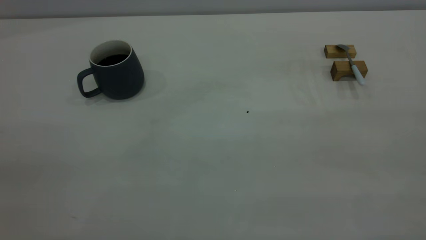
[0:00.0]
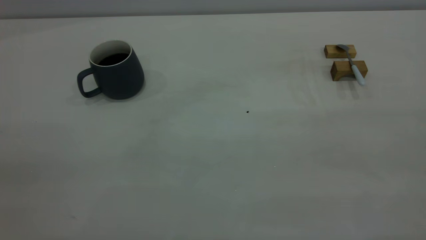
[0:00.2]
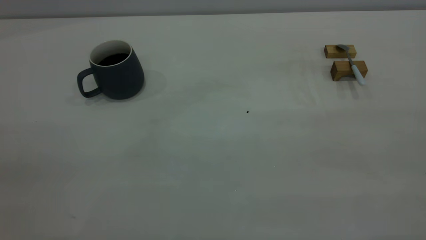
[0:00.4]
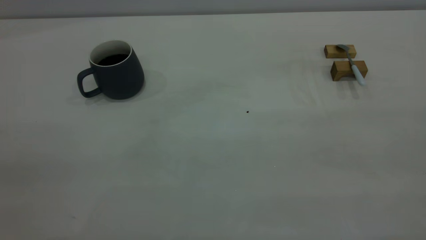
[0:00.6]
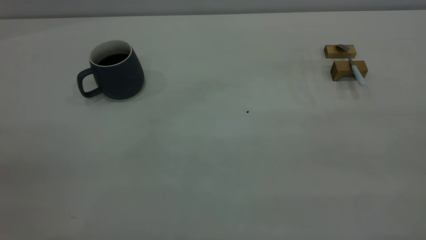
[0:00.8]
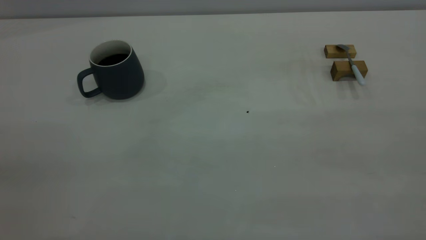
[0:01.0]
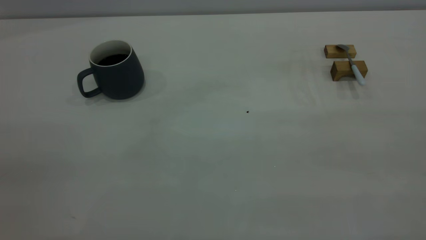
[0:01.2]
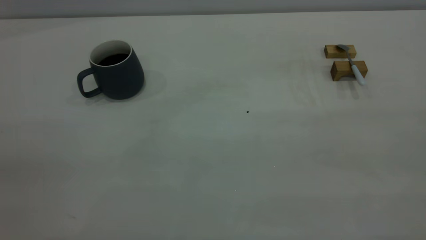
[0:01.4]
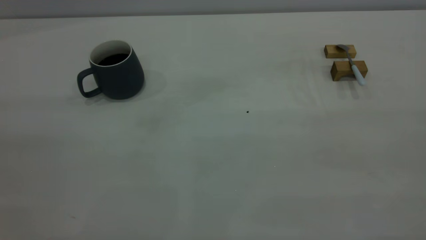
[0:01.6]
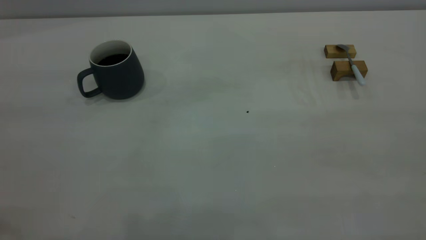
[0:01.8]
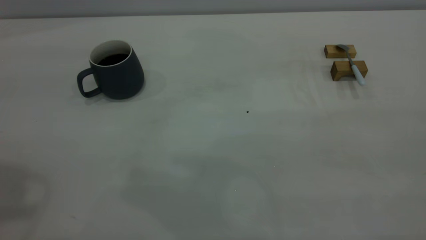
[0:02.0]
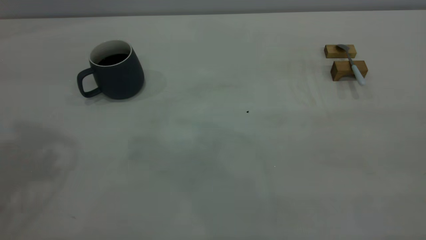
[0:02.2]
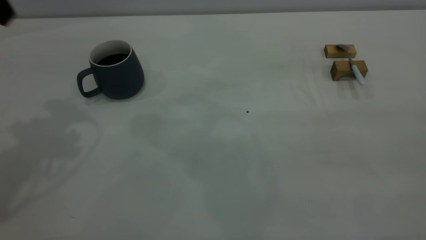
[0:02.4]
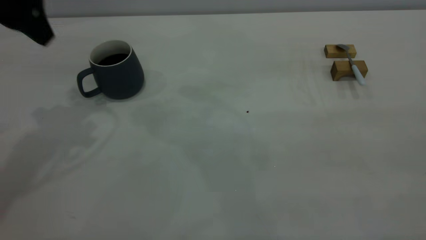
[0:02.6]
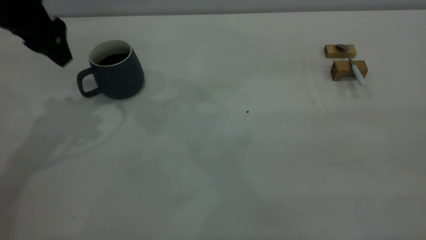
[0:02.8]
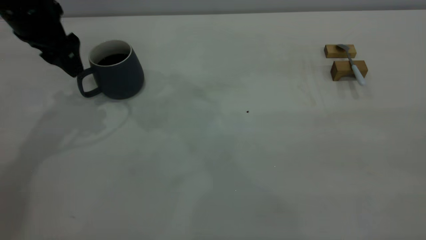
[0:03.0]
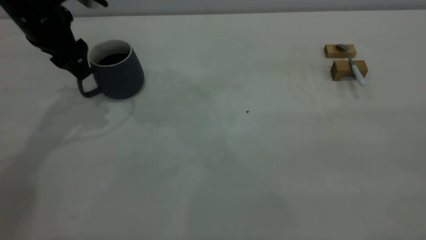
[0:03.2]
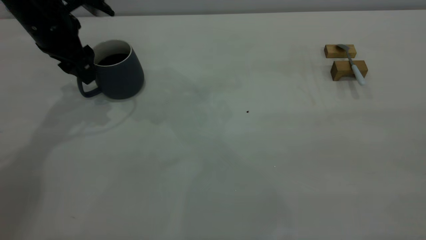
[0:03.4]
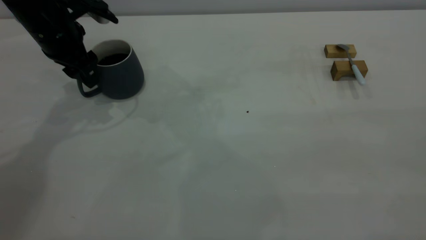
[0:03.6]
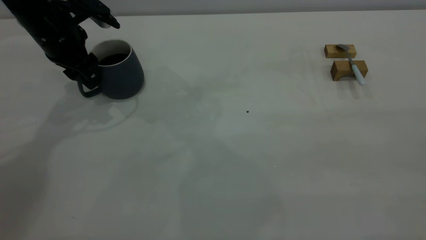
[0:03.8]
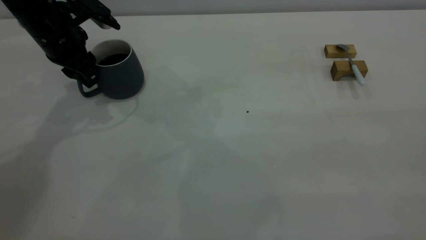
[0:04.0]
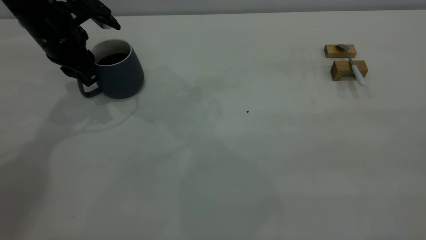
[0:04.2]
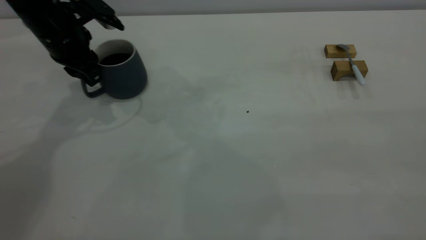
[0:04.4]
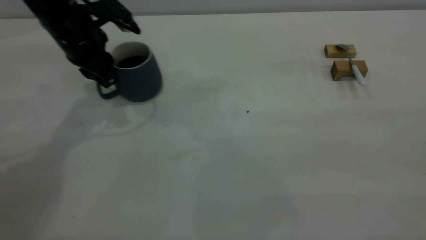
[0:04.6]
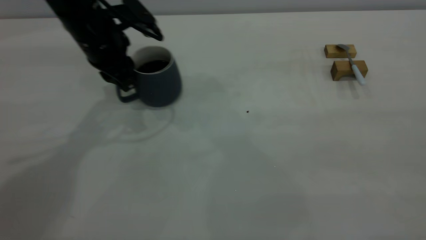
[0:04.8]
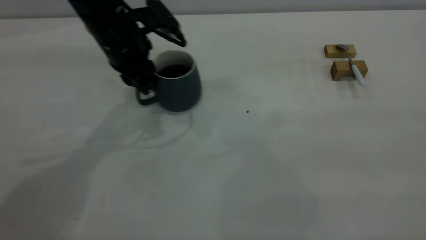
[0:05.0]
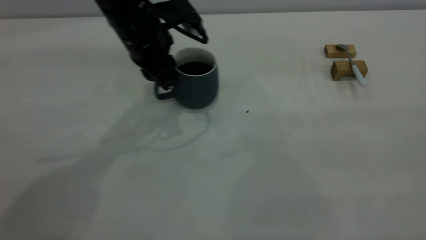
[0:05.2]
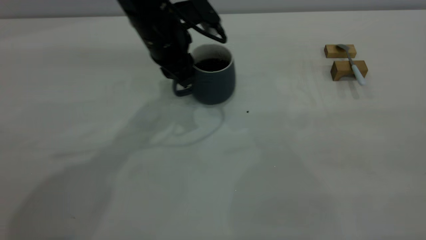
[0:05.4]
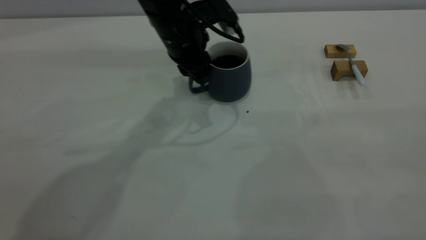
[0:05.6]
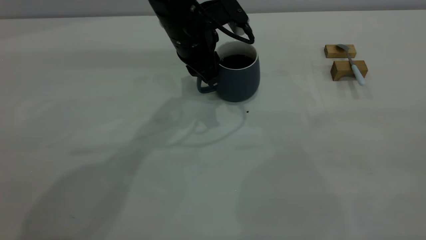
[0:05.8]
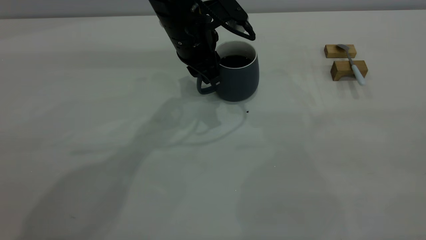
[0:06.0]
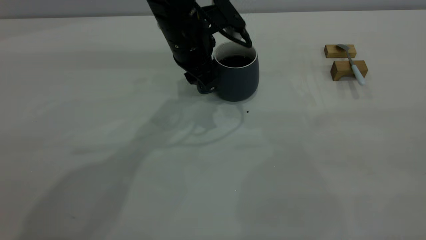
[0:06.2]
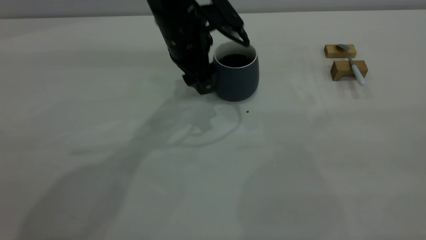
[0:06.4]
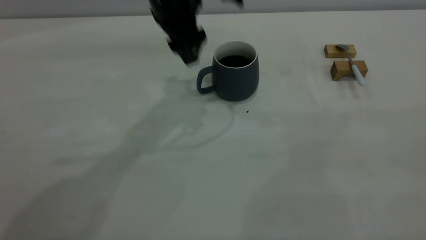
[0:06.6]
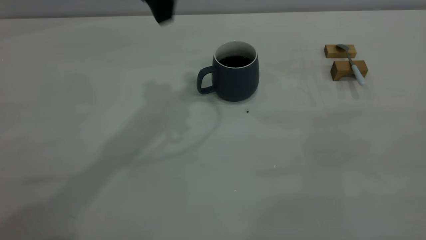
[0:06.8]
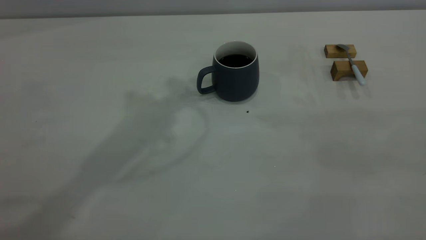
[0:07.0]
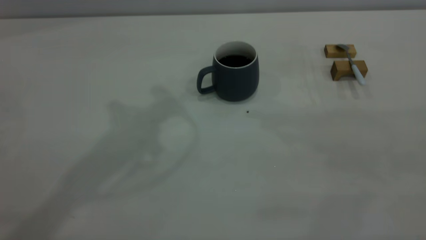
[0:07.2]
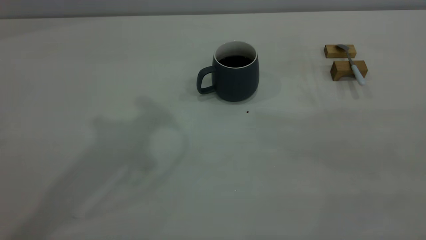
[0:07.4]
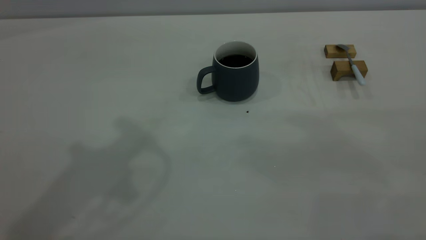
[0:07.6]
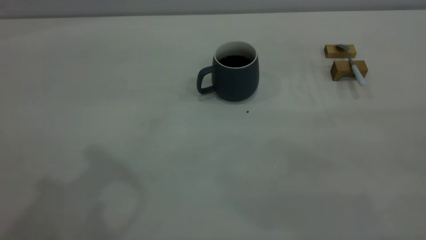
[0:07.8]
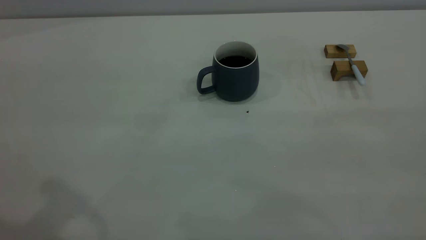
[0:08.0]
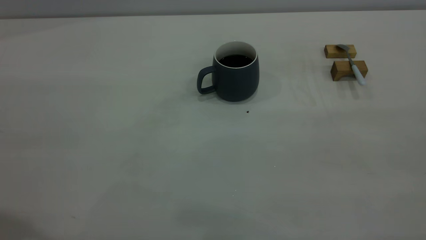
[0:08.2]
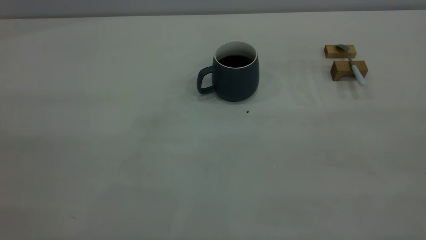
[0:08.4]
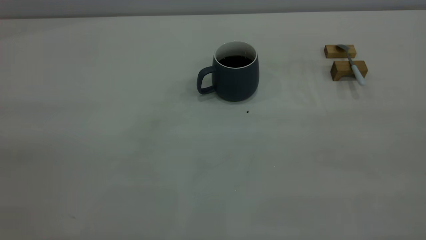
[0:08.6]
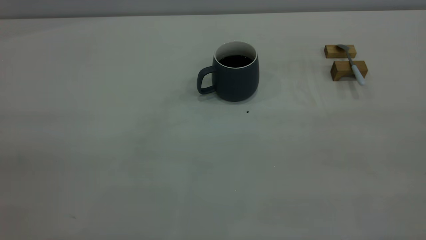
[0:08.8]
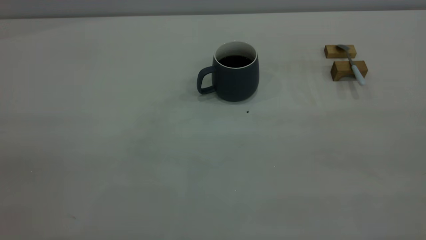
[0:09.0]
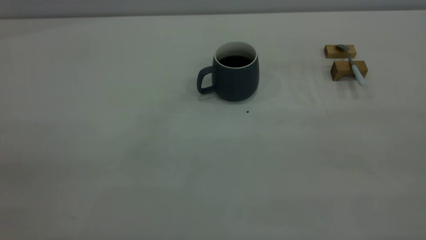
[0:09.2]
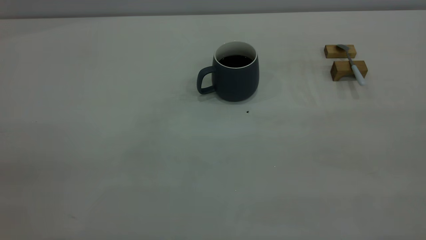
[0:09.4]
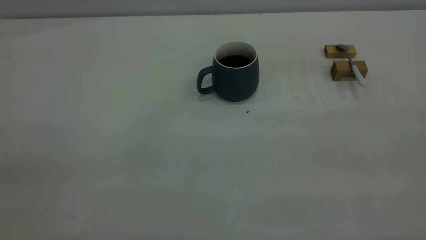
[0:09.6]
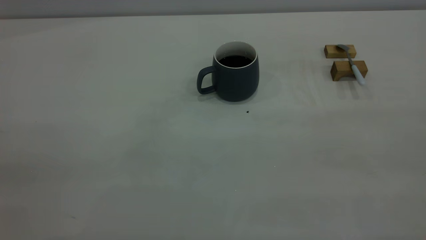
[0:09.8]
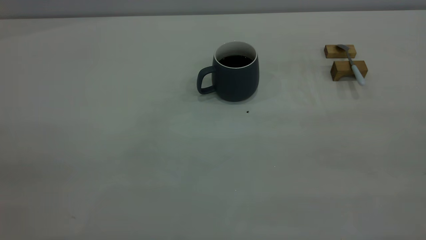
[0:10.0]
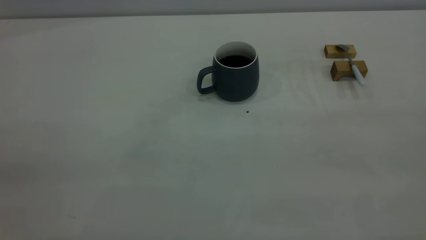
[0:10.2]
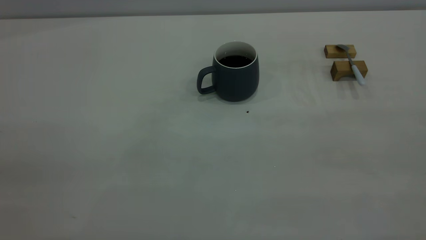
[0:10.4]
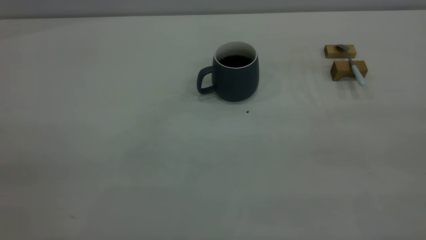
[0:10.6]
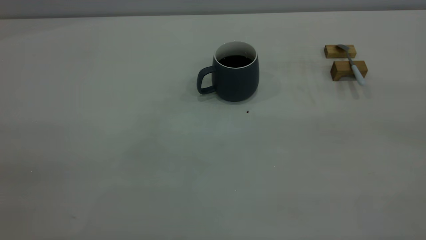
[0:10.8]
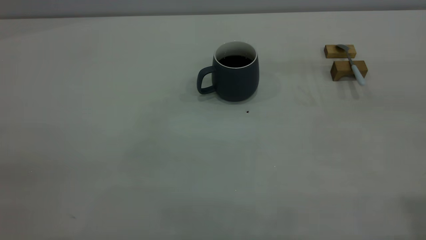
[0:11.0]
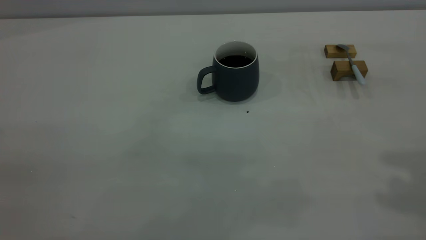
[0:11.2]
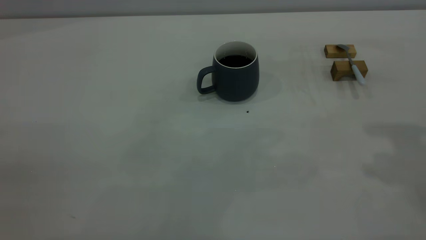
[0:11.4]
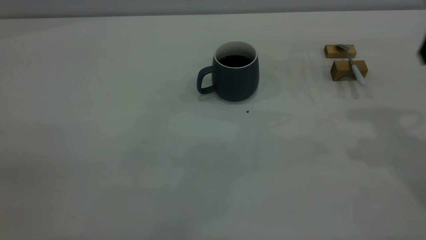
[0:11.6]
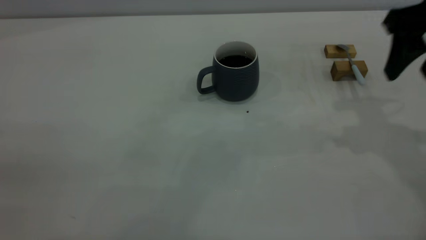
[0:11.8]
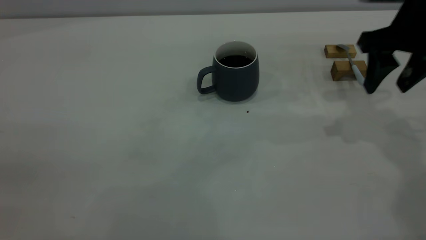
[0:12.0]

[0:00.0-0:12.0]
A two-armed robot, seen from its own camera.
Step, 0:00.0 to 0:06.6: Move the cup with coffee to the center of view.
0:01.6 to 0:03.0: The left gripper goes approximately 40 cm forward and downward, and opens its fingers.
0:03.0 to 0:04.4: The left gripper travels downward by roughly 5 cm, and closes.
0:04.4 to 0:06.0: The left gripper goes about 20 cm to the right.
0:06.0 to 0:07.6: The left gripper is displaced upward, backward and to the left by approximately 35 cm, and opens, then closes once more.
0:10.4 to 0:12.0: The right gripper travels forward and downward by roughly 40 cm, and opens up.

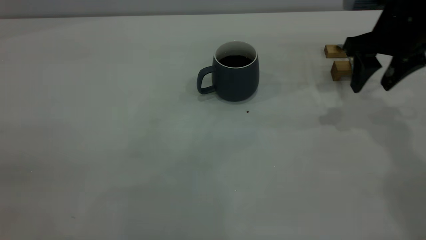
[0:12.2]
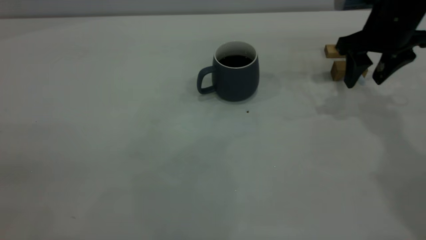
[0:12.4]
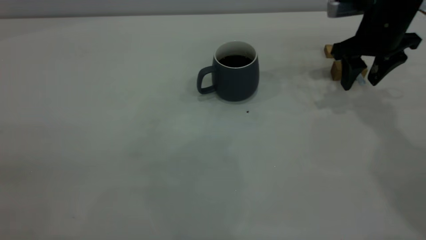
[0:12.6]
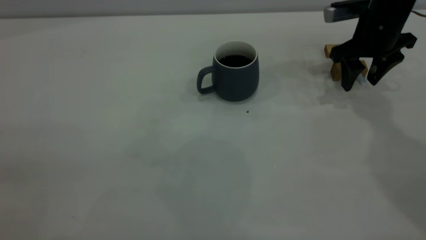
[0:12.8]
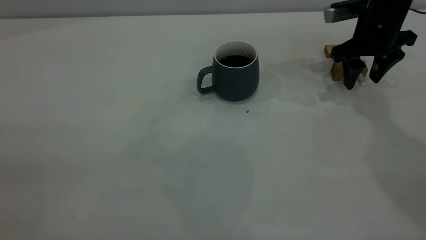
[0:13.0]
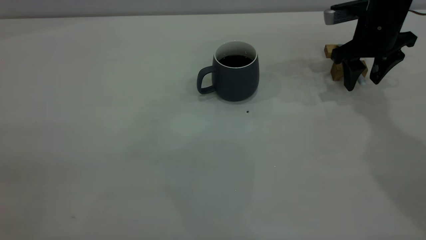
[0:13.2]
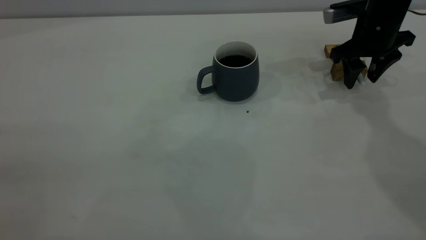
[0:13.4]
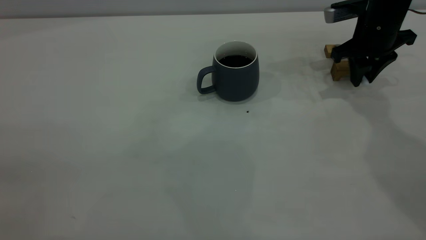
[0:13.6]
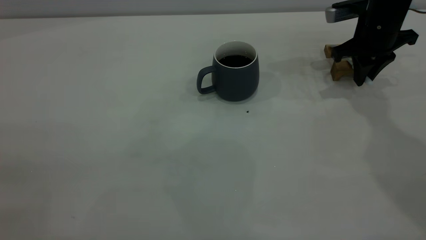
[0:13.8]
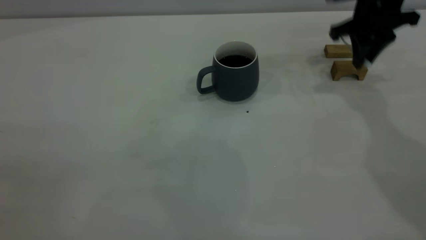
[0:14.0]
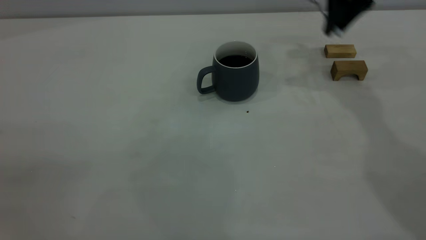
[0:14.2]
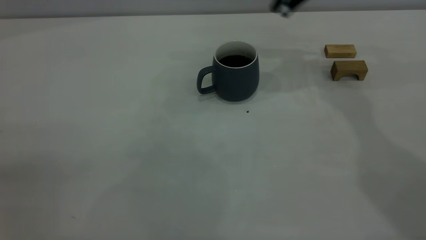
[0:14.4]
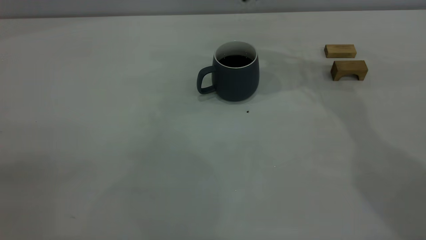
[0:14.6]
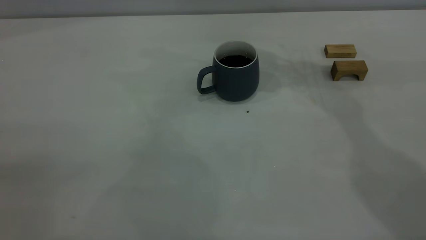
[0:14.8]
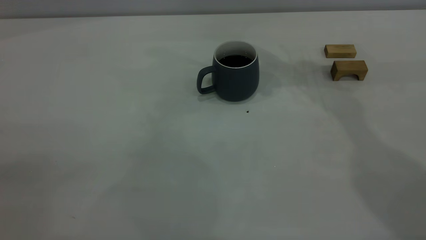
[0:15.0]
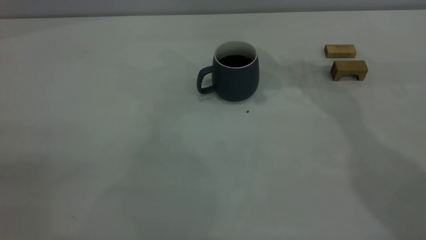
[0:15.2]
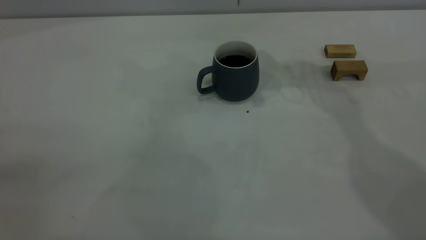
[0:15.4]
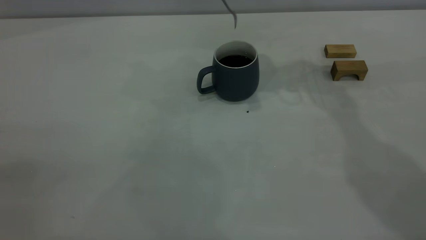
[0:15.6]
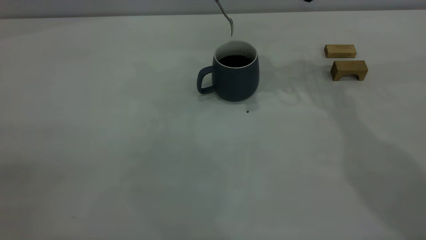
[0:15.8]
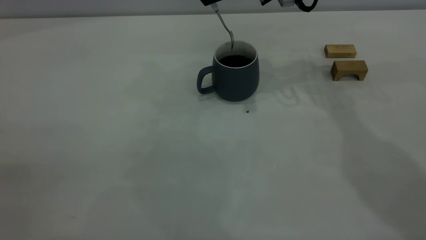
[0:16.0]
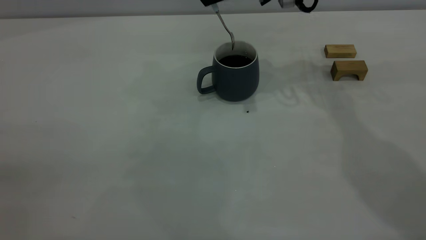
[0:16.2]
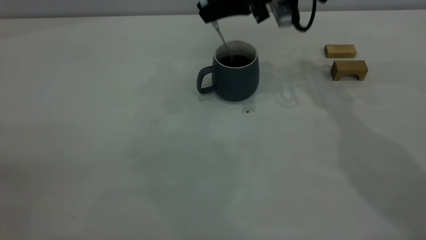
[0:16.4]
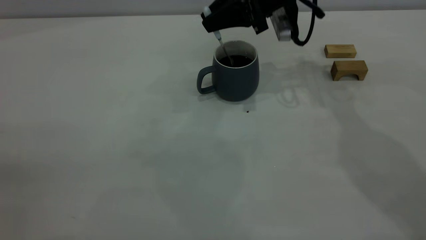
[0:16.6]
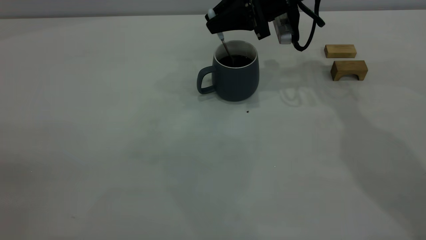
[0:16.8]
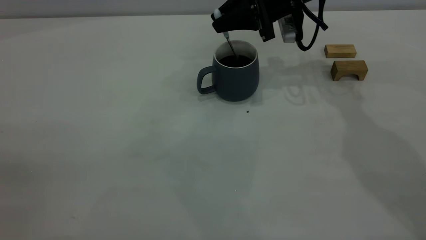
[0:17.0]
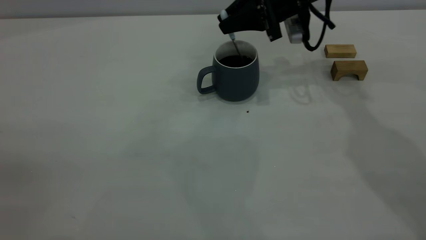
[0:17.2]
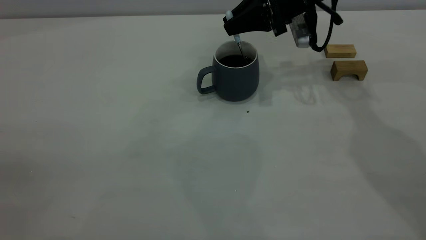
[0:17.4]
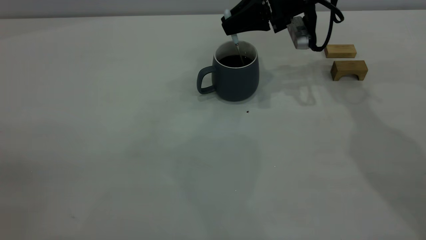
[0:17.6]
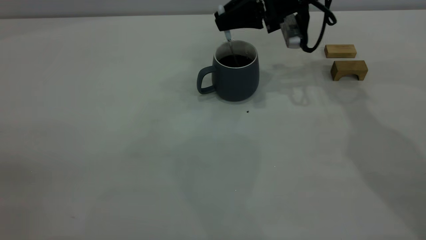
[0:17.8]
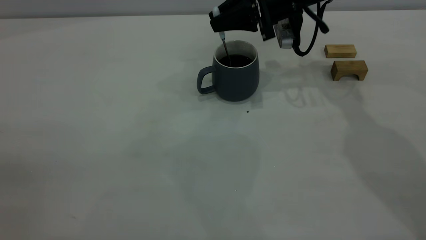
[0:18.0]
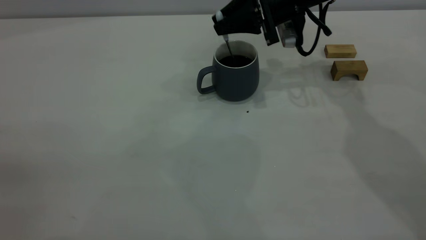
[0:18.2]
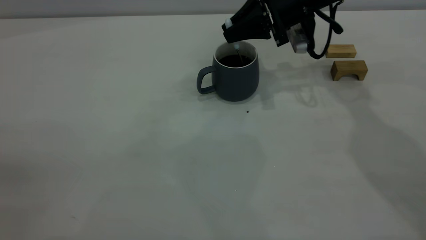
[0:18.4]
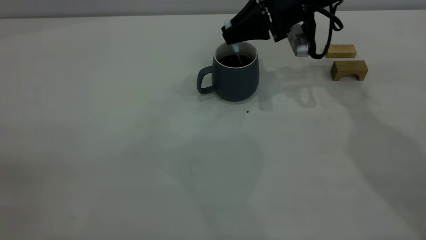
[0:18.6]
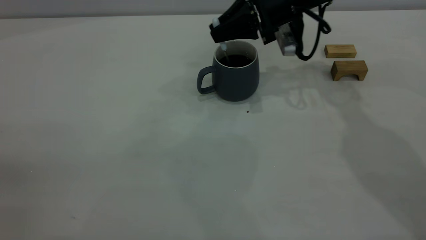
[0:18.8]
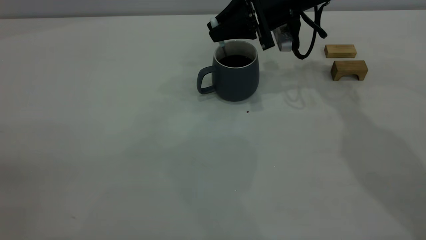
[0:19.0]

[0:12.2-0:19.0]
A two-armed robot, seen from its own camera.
0:12.2 to 0:13.6: The right gripper is displaced forward by about 5 cm, and closes its fingers.
0:13.6 to 0:15.0: The right gripper moves upward and to the left, about 20 cm.
0:16.2 to 0:17.6: The right gripper is displaced downward by roughly 5 cm.
0:17.6 to 0:19.0: The grippers stay close to where they were, moving slightly.
